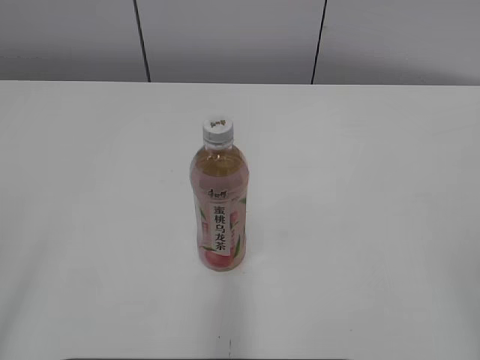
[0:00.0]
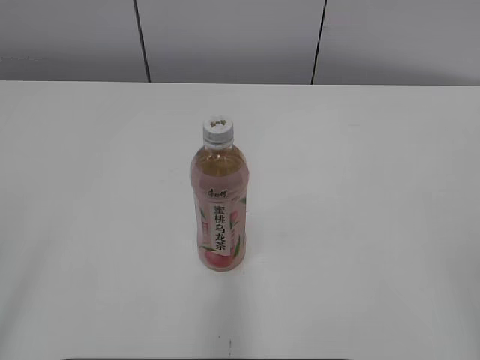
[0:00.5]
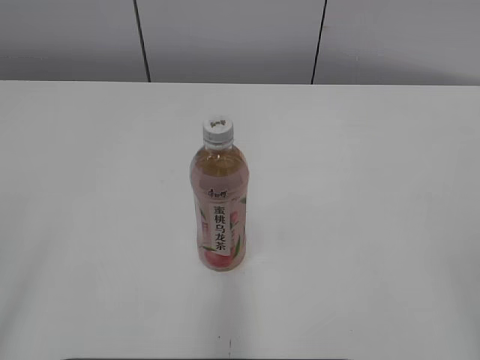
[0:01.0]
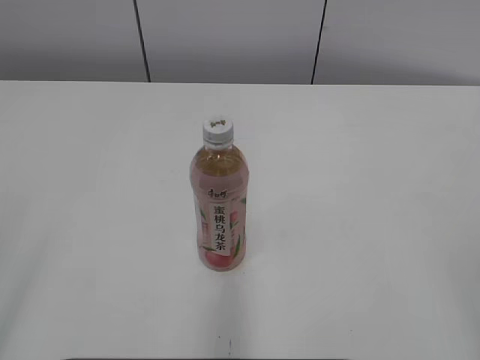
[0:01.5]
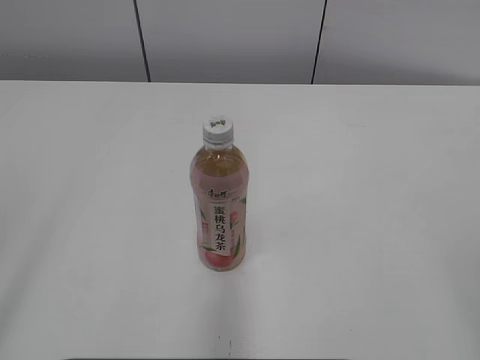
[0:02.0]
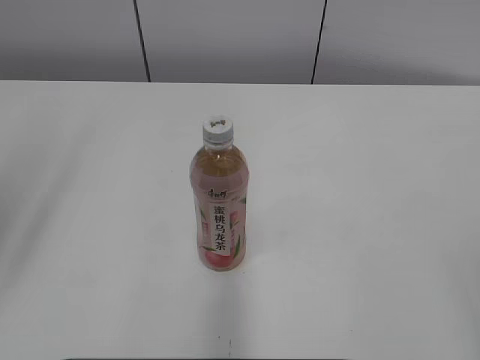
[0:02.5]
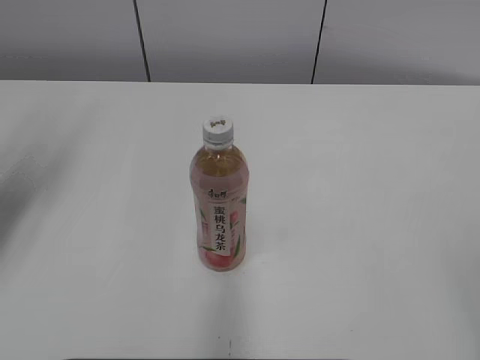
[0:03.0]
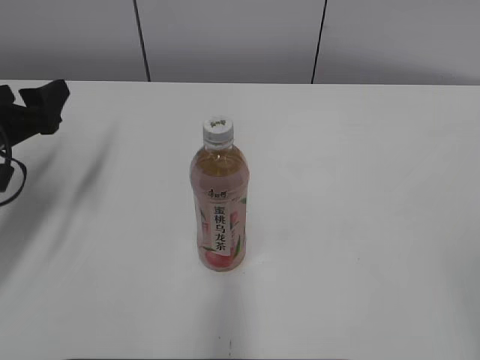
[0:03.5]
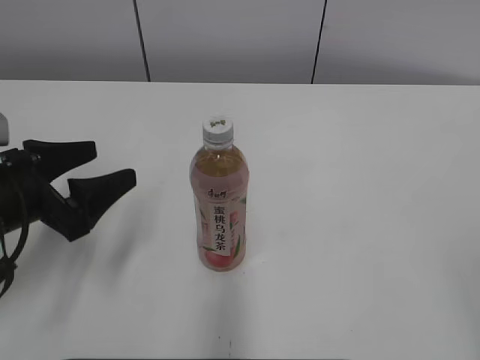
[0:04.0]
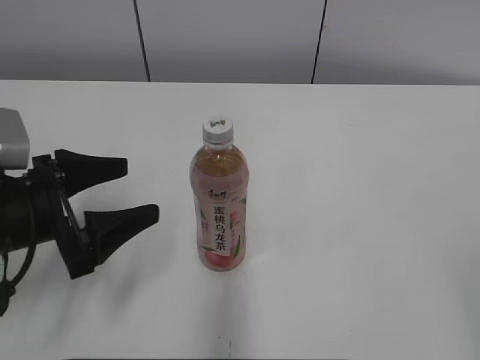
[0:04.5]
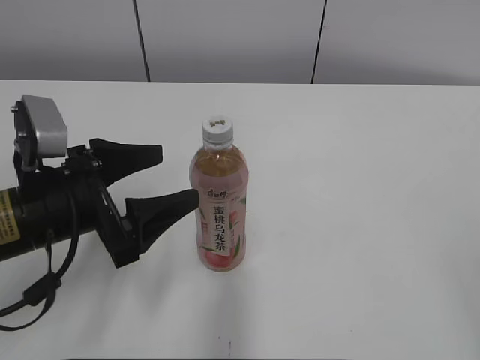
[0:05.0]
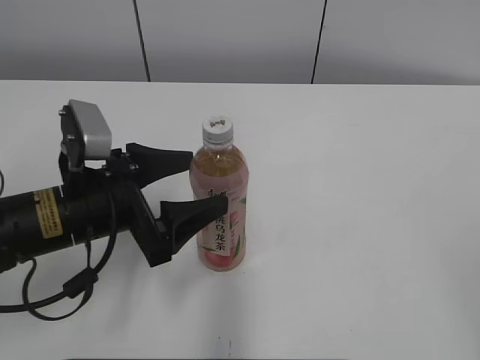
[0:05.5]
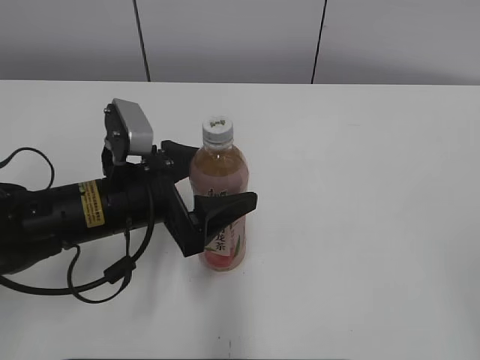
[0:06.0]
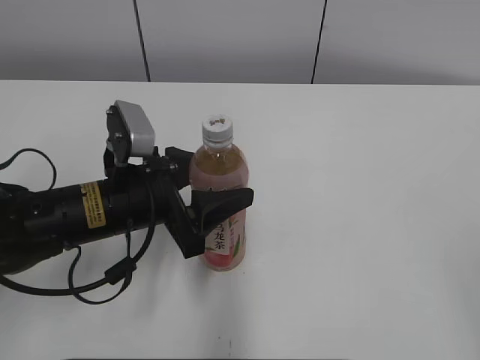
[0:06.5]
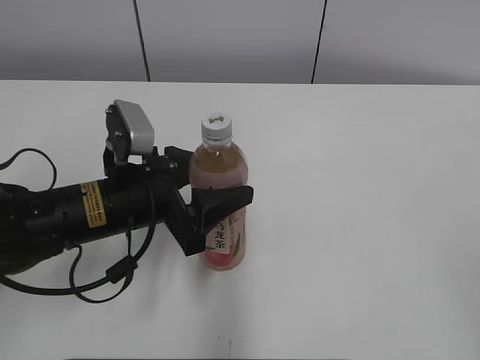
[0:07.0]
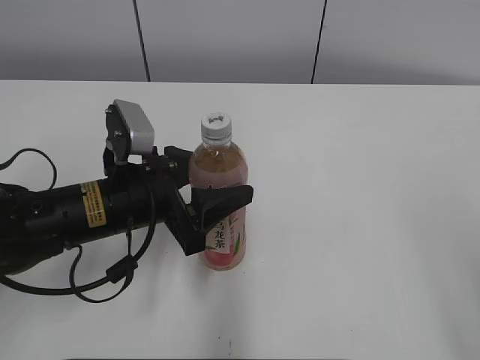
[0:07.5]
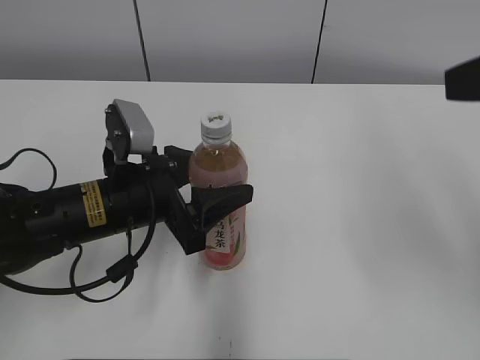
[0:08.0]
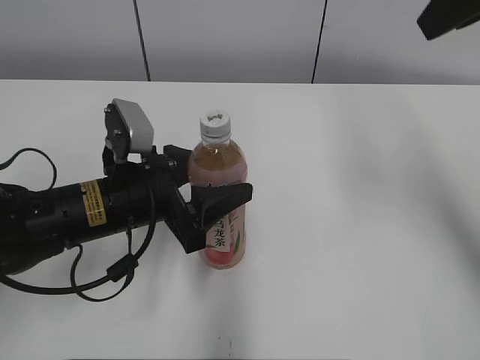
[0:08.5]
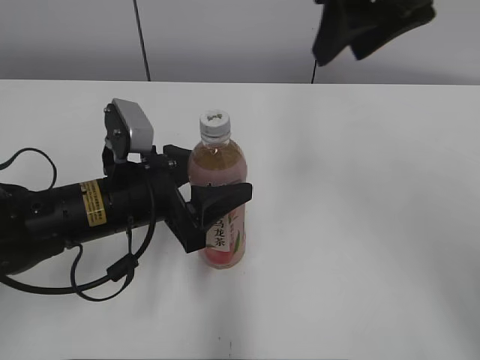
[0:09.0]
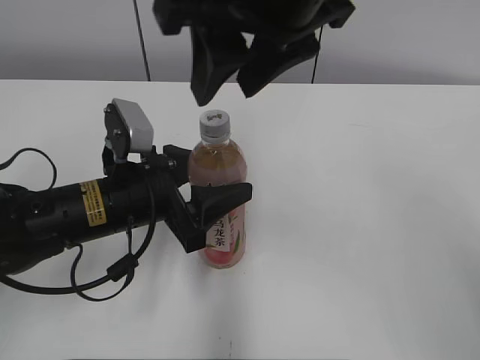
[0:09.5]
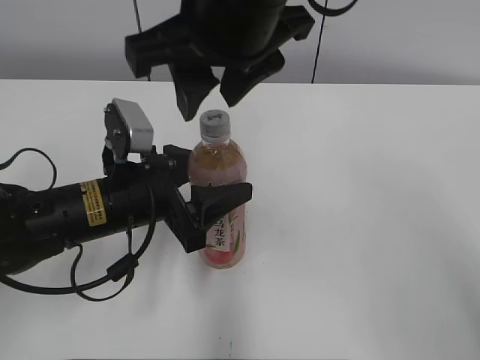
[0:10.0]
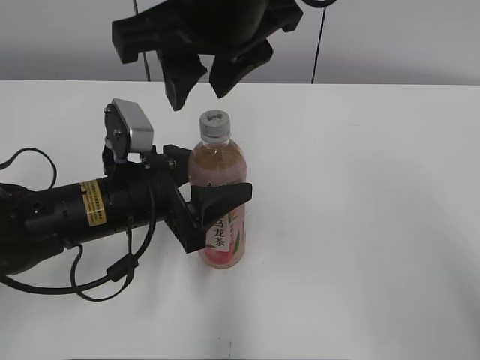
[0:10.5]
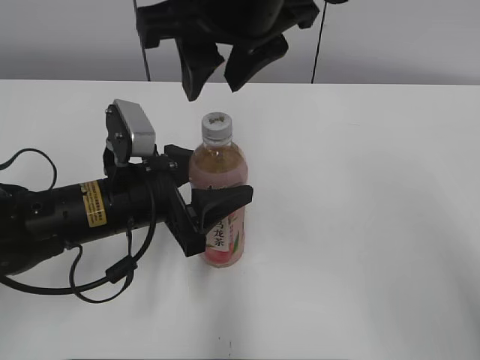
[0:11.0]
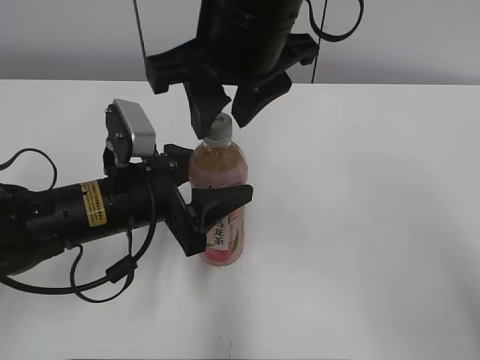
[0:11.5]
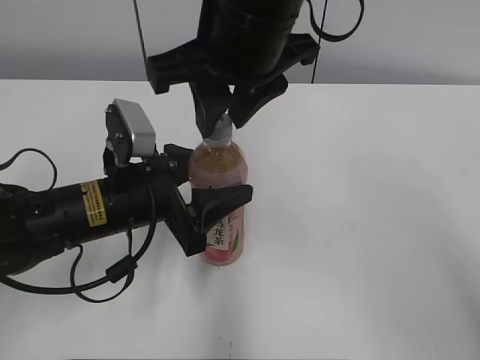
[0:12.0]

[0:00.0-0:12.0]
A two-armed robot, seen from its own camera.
Step, 0:00.0 to 0:06.5: Grab the Peach Oolong Tea with the left hand.
0:02.0 to 0:04.0: The left gripper goes some 30 cm forward and downward.
0:04.0 to 0:06.0: The left gripper moves to the right, roughly 10 cm.
0:06.0 to 0:08.0: The right gripper is displaced forward by about 20 cm, and closes its fingers. The left gripper closes.
0:08.0 to 0:10.0: The right gripper moves to the left, some 25 cm.
0:10.0 to 0:12.0: The grippers stay close to where they were, moving slightly.

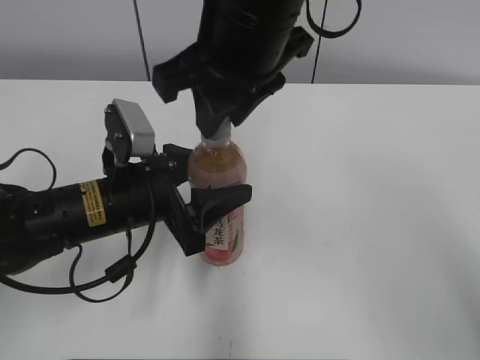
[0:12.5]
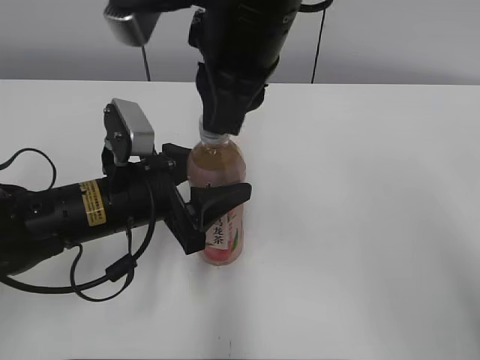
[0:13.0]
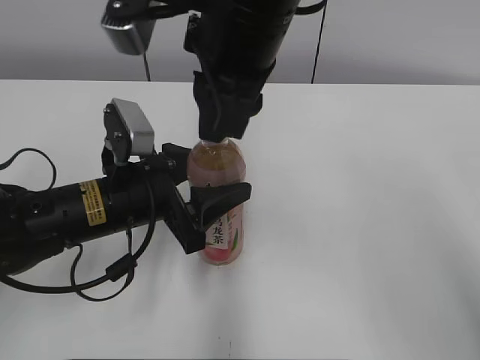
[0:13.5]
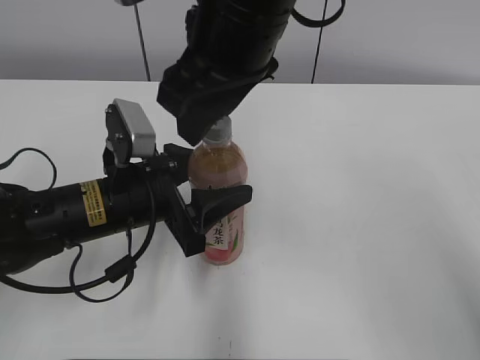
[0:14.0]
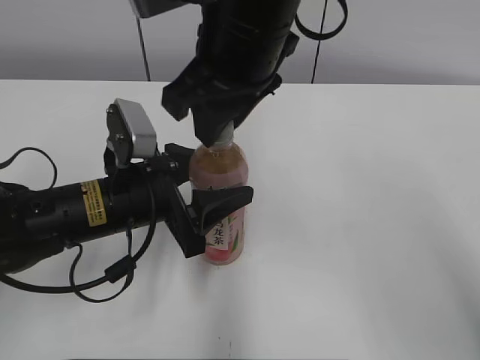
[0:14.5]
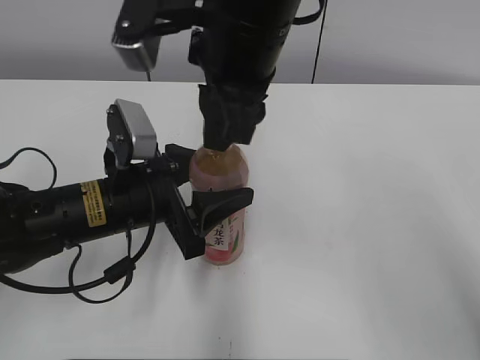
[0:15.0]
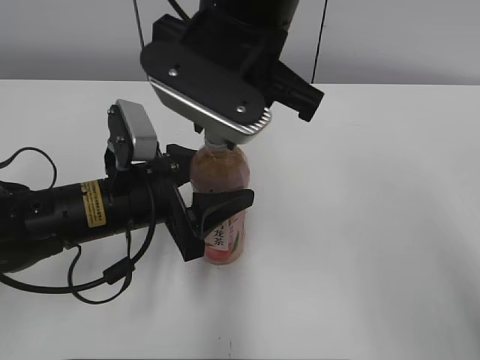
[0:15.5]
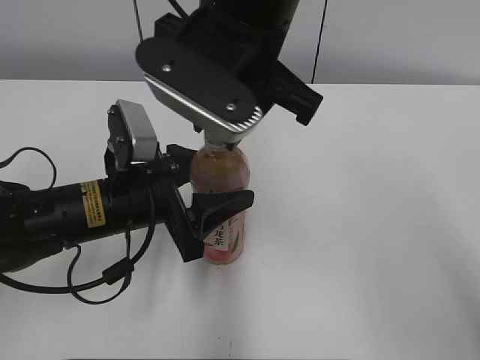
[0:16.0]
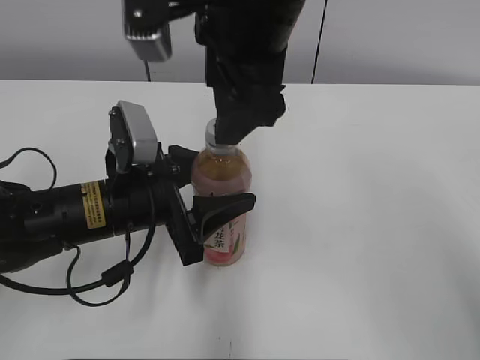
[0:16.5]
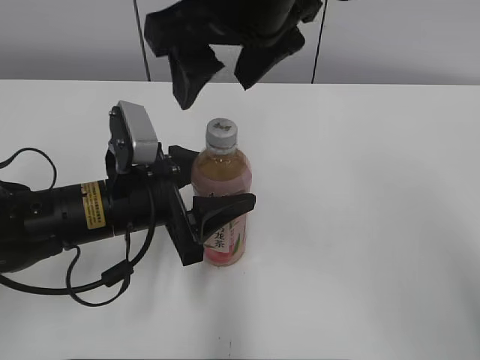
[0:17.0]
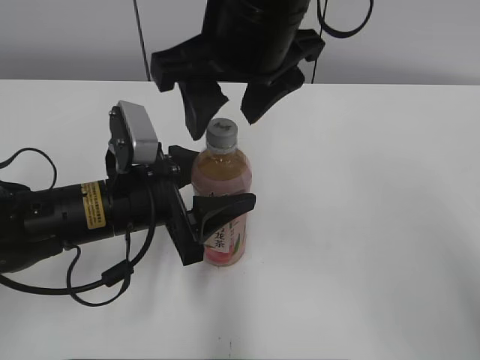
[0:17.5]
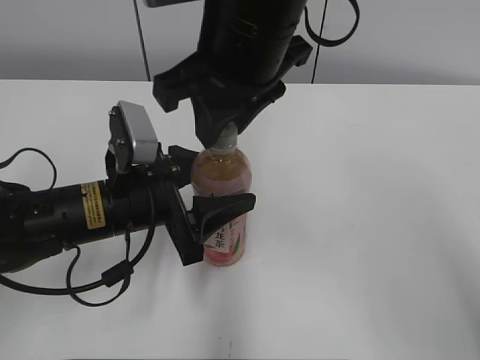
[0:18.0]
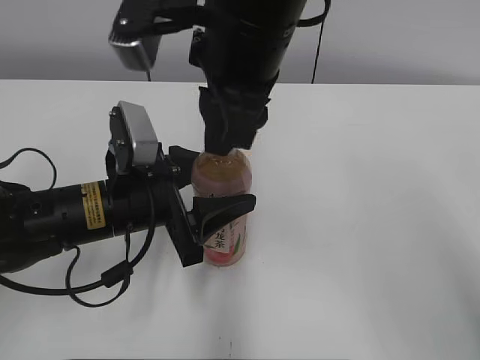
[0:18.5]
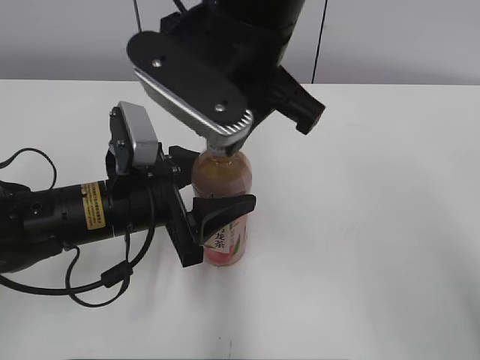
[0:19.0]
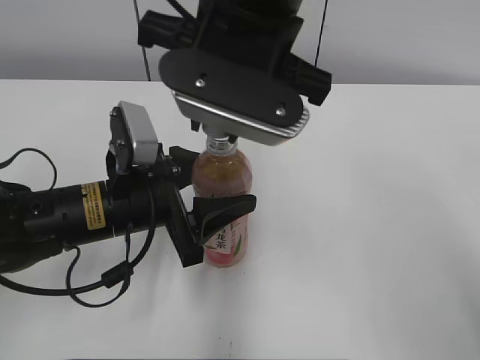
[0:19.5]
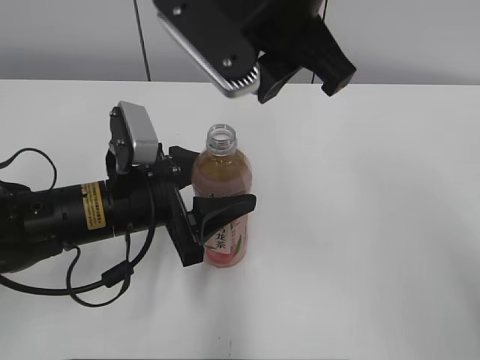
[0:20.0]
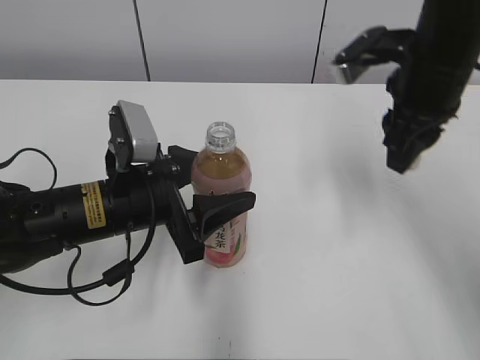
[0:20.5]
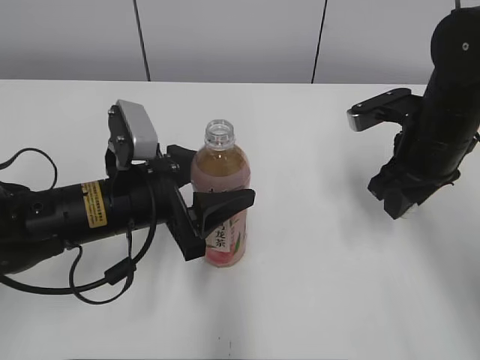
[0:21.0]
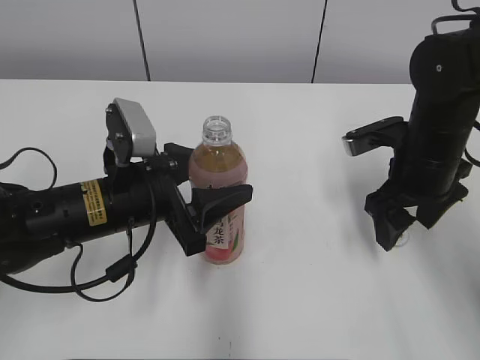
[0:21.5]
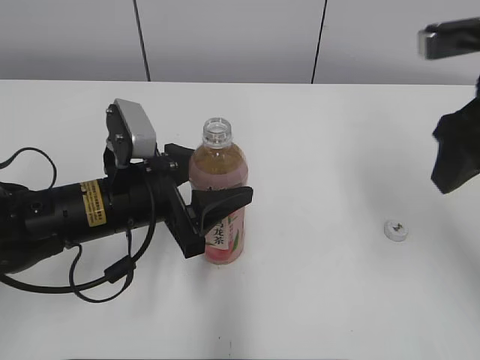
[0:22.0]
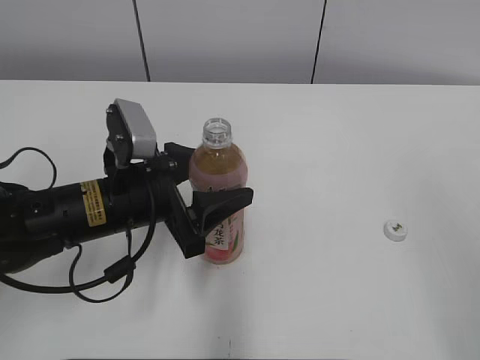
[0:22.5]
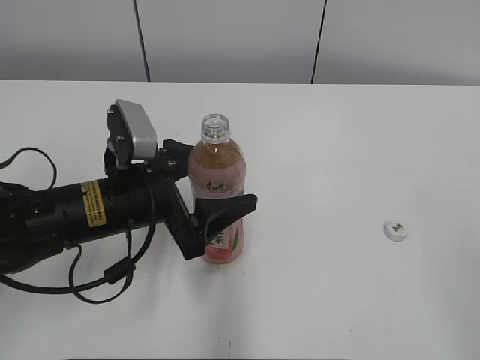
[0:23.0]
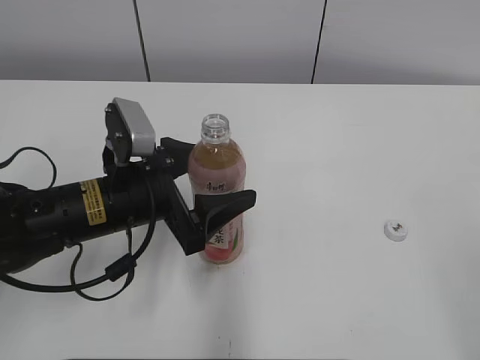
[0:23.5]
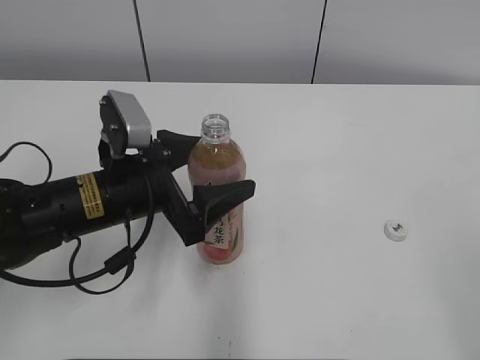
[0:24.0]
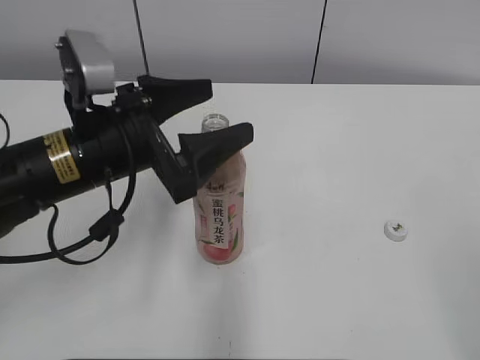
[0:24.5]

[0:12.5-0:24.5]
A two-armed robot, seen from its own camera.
Step, 0:20.0 to 0:21.5: Place the bottle cap on the right.
0:12.5 to 0:14.5: The right gripper opens, then closes once more.
0:14.5 to 0:16.5: The right gripper opens up.
0:16.5 to 0:18.5: The right gripper closes up.
0:18.5 to 0:20.5: The right gripper moves to the right, about 15 cm.
0:20.5 to 0:22.5: The right gripper is displaced backward by approximately 30 cm, and opens.
0:22.5 to 0:24.5: The left gripper shifts some 5 cm upward, and opens. The right gripper heads downward and backward, covering some 10 cm.

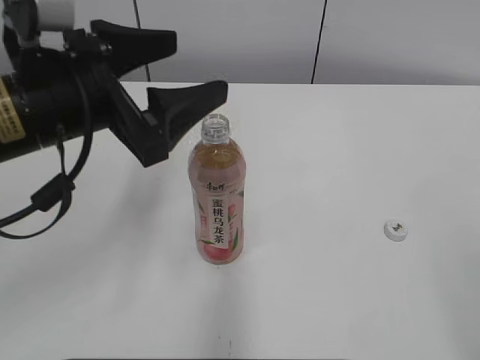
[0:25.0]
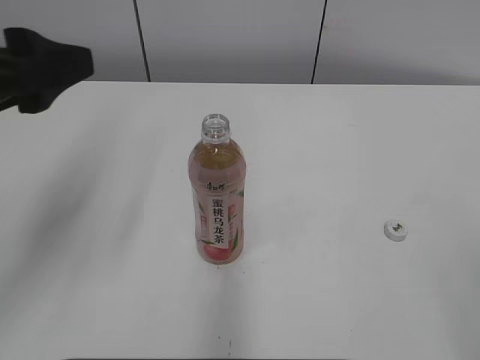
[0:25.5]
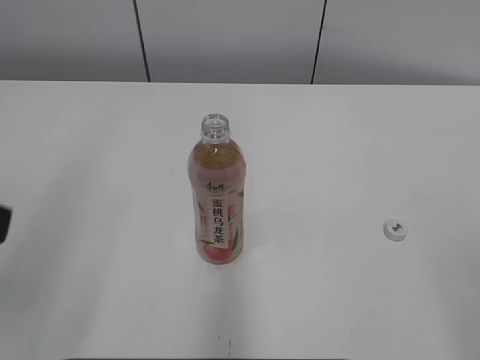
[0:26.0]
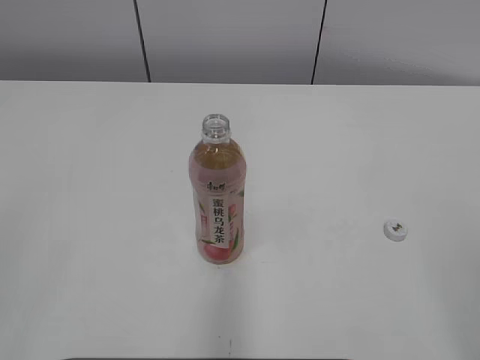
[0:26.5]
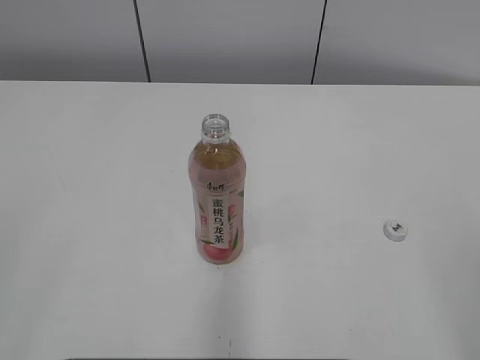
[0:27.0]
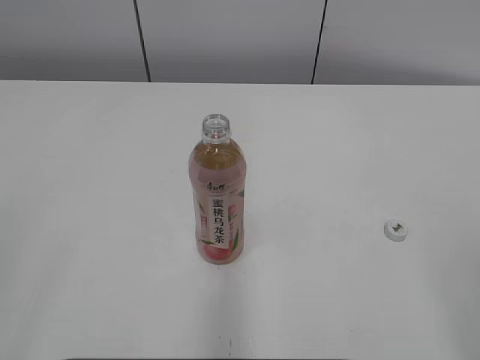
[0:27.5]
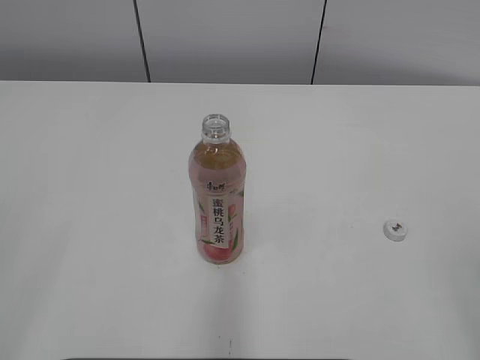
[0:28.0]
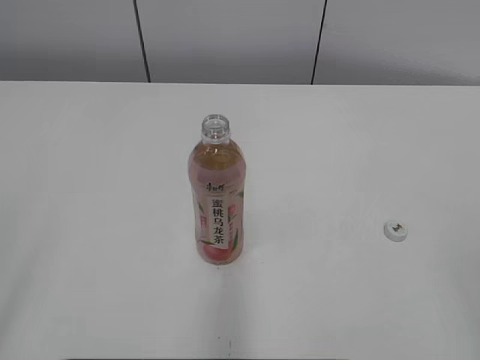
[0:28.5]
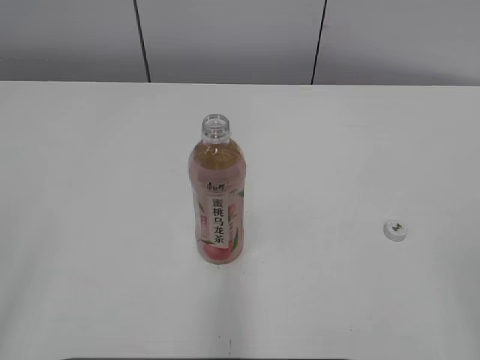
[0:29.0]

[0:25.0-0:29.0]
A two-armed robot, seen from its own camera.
0:25.0 to 0:27.0: The left gripper is displaced backward and to the left by some 30 cm.
